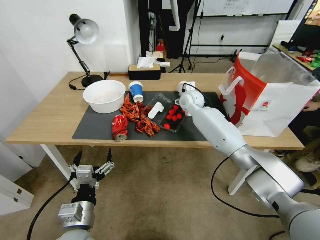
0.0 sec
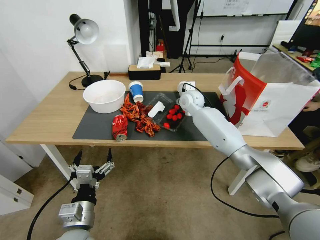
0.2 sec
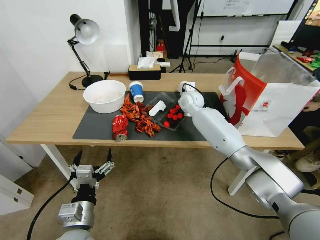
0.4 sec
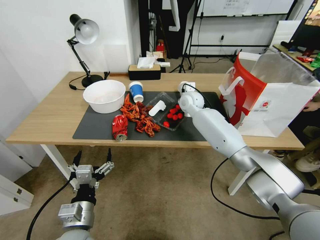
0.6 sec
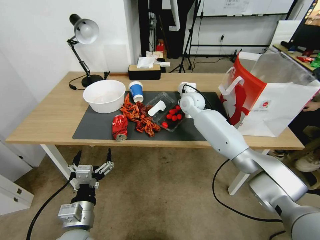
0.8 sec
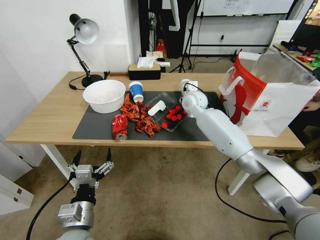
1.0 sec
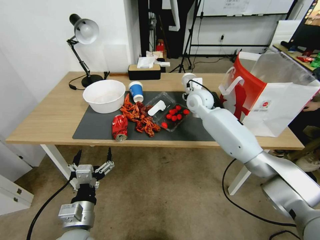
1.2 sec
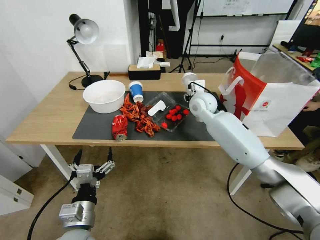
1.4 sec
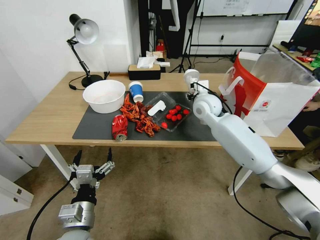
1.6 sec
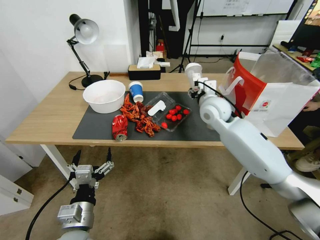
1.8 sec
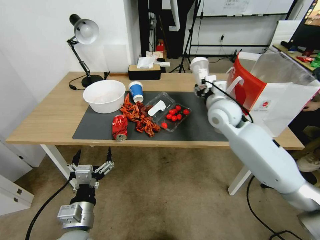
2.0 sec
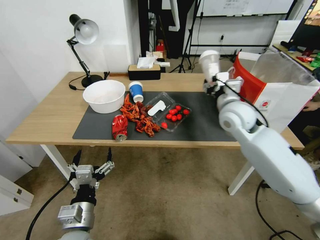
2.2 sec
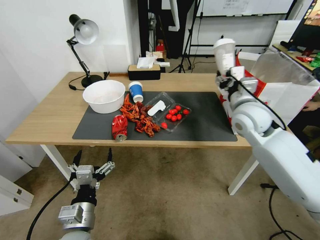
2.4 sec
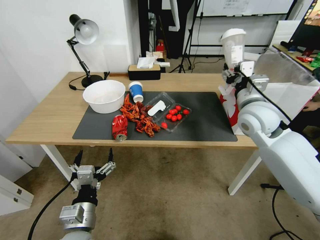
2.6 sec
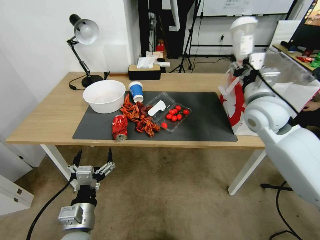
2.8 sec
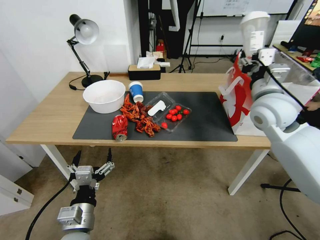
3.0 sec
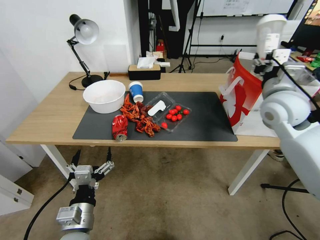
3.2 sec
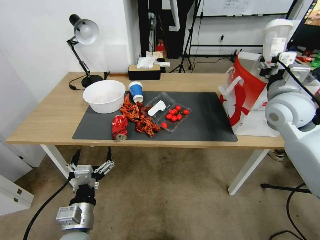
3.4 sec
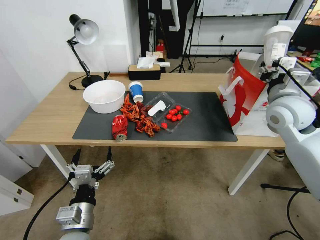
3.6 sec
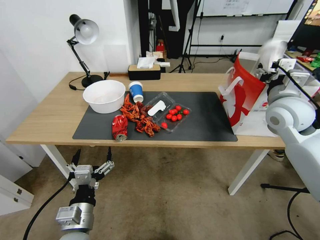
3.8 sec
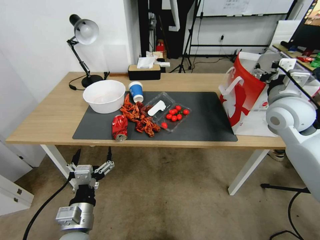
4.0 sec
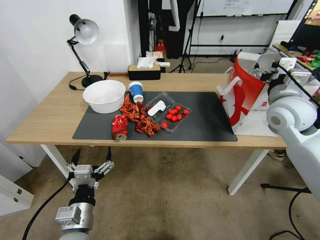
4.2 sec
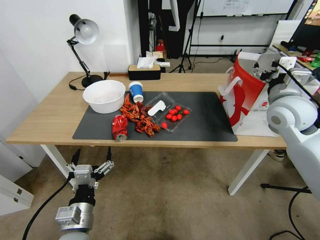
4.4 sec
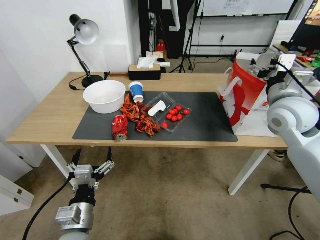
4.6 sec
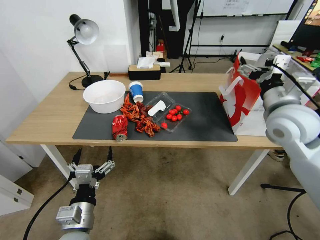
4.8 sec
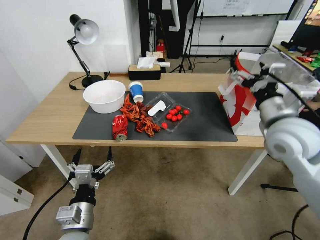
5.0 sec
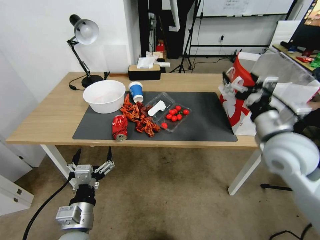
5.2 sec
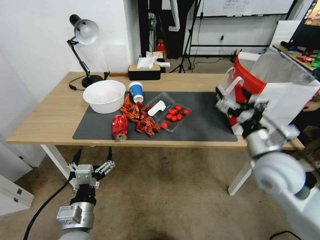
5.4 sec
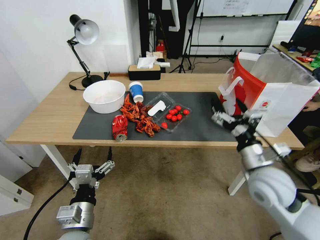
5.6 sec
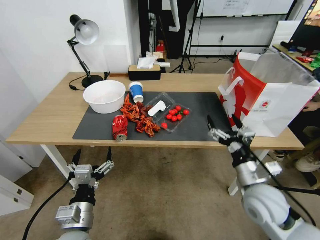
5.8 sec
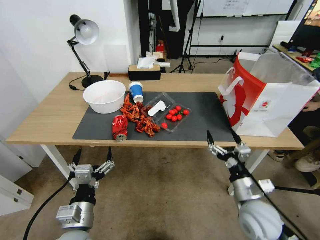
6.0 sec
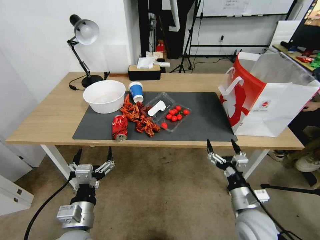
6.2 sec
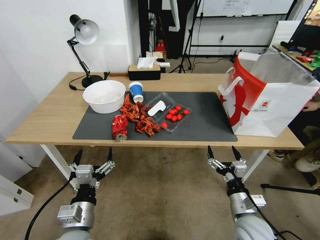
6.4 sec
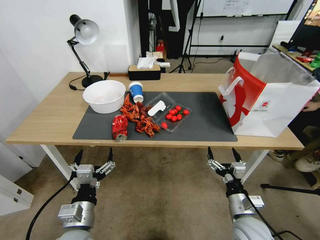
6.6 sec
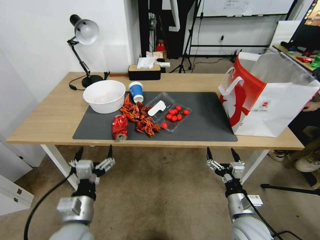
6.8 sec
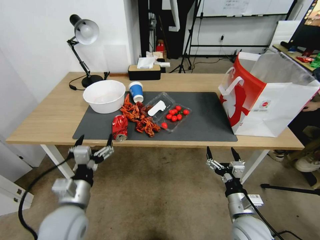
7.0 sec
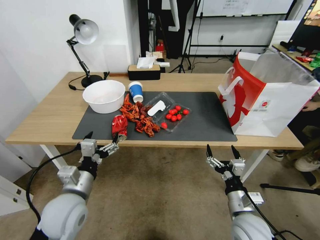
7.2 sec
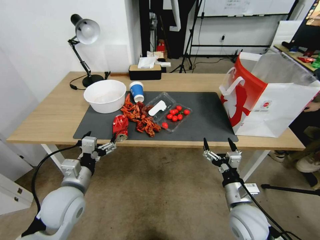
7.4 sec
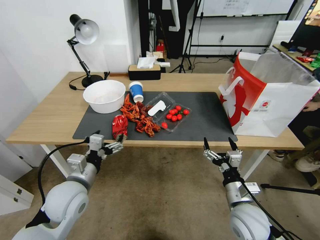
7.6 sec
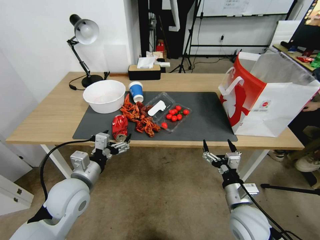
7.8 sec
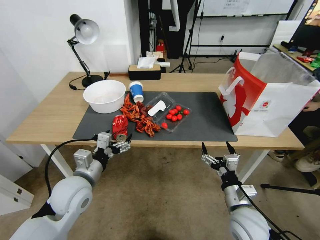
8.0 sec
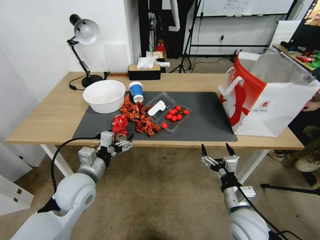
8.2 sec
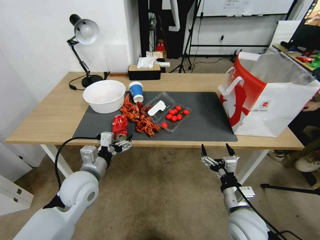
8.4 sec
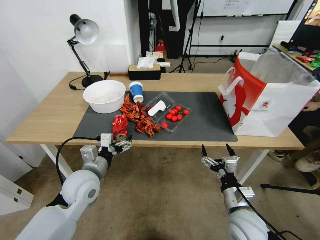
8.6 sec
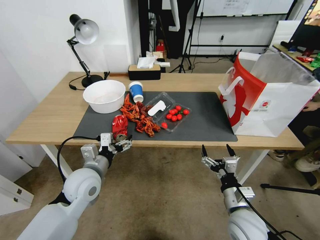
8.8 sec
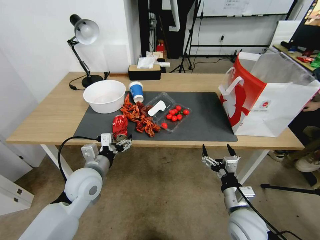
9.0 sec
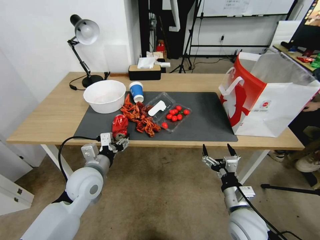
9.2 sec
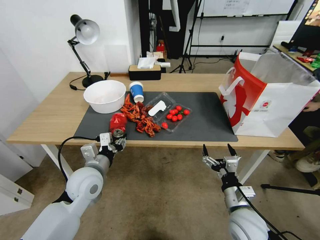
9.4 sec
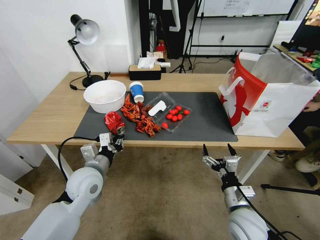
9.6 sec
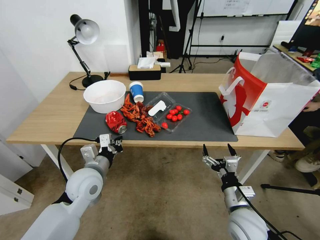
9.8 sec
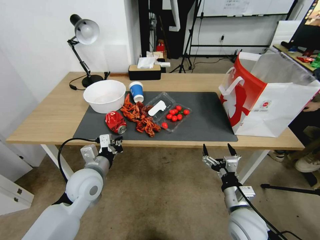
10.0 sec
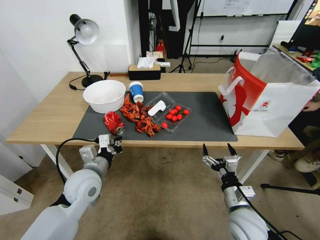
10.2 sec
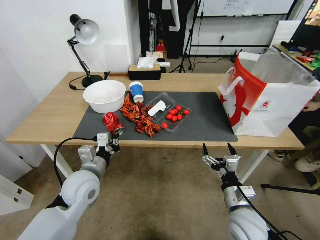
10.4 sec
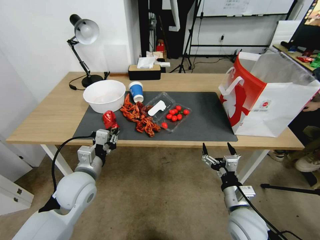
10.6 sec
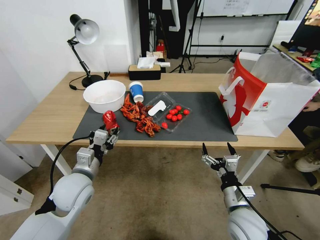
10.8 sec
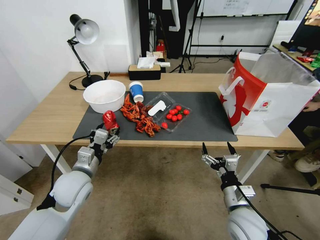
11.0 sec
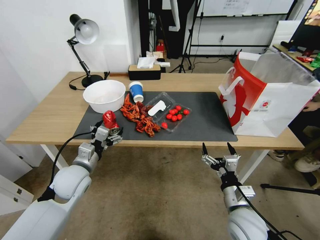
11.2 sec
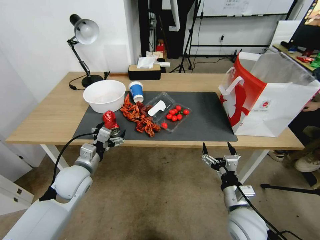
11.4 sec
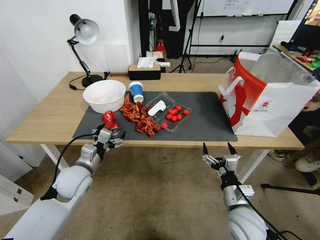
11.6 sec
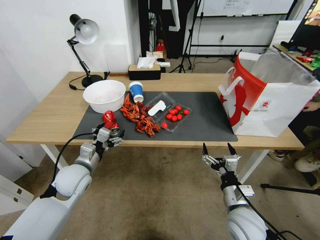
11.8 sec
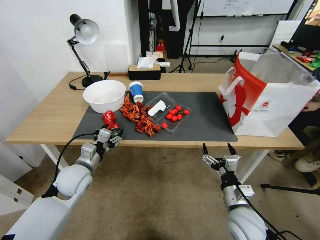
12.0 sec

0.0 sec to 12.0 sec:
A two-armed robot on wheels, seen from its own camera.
0.0 sec to 1.6 sec: The right gripper moves backward, roughly 10 cm, and closes its fingers.
1.6 sec to 3.0 sec: The right gripper moves to the right, backward and upward, approximately 20 cm.
3.0 sec to 4.4 sec: The right gripper opens its fingers.
4.4 sec to 6.0 sec: The right gripper shifts some 30 cm downward and backward.
6.0 sec to 7.6 sec: The left gripper shifts approximately 10 cm forward.
7.6 sec to 9.0 sec: The left gripper shifts by approximately 5 cm.
9.0 sec to 10.4 sec: The left gripper closes its fingers.
10.4 sec to 12.0 sec: The left gripper moves some 5 cm, and opens.

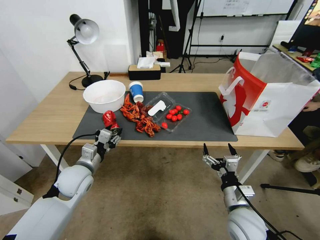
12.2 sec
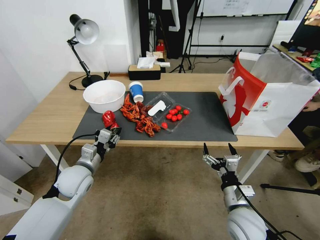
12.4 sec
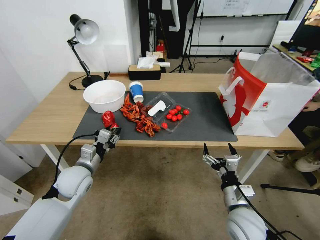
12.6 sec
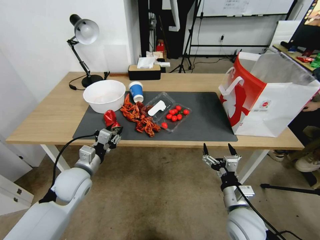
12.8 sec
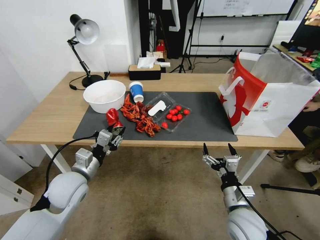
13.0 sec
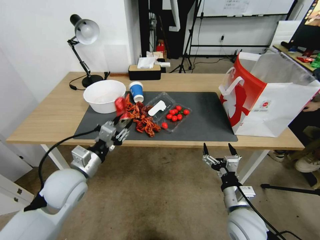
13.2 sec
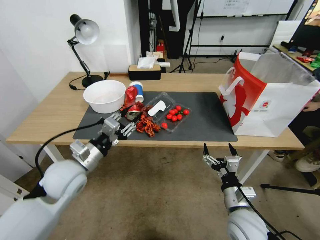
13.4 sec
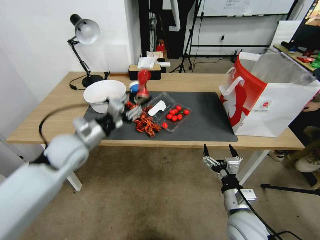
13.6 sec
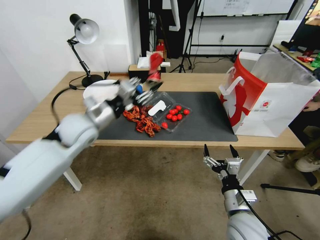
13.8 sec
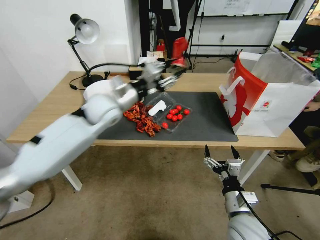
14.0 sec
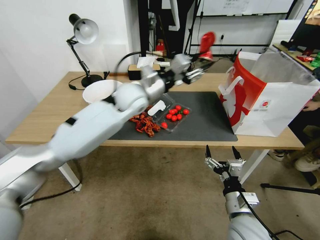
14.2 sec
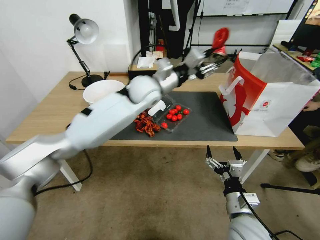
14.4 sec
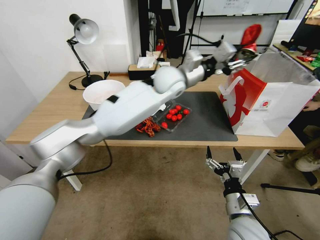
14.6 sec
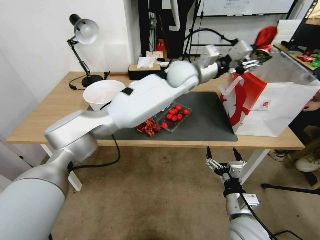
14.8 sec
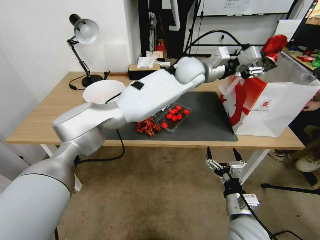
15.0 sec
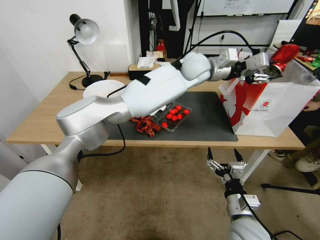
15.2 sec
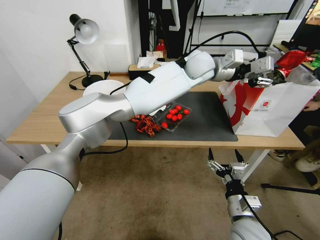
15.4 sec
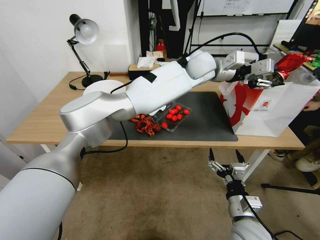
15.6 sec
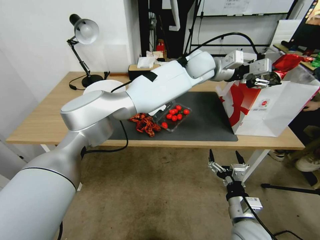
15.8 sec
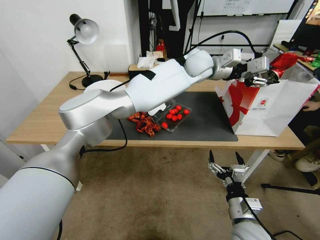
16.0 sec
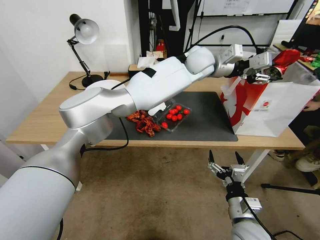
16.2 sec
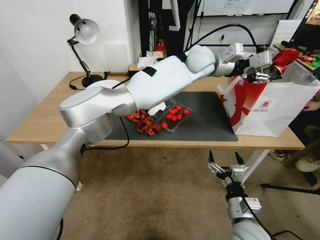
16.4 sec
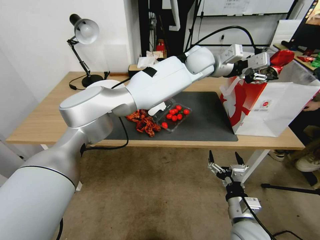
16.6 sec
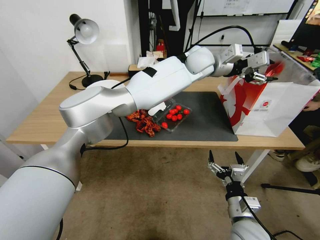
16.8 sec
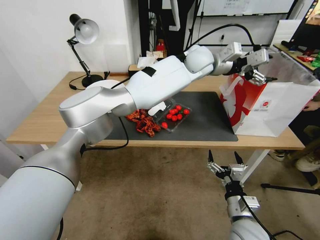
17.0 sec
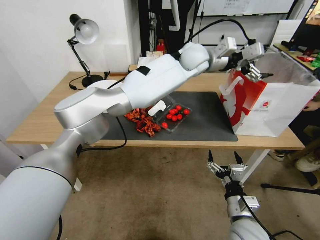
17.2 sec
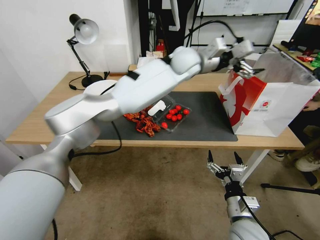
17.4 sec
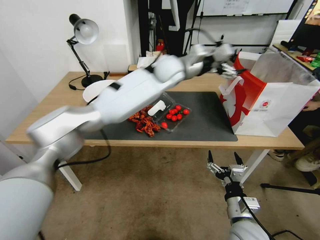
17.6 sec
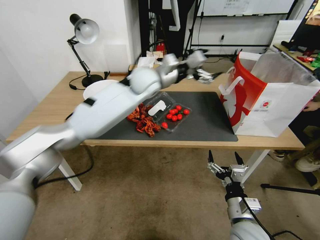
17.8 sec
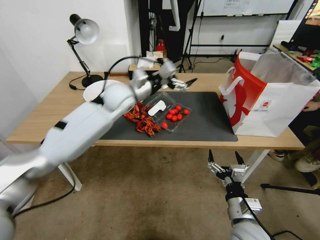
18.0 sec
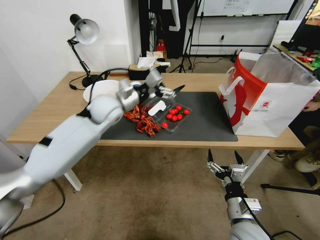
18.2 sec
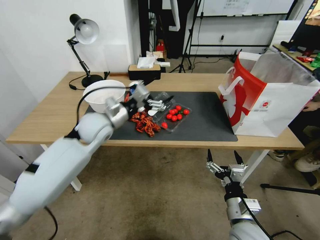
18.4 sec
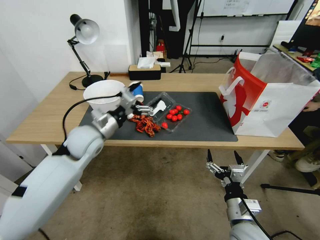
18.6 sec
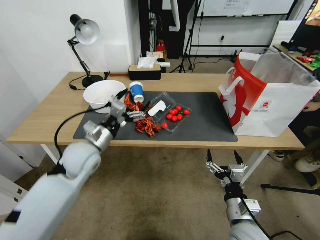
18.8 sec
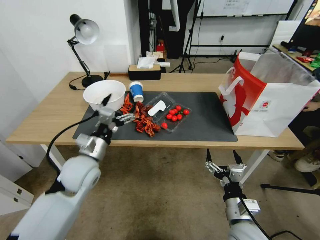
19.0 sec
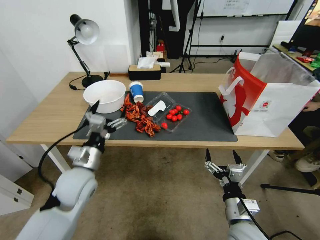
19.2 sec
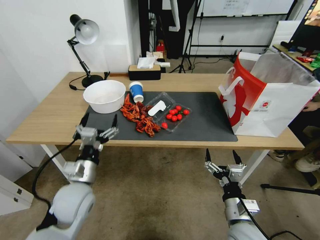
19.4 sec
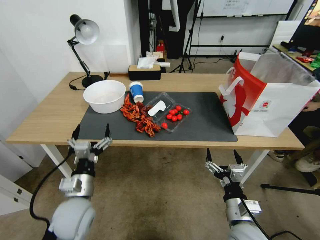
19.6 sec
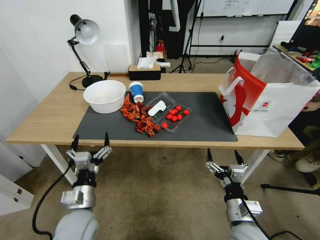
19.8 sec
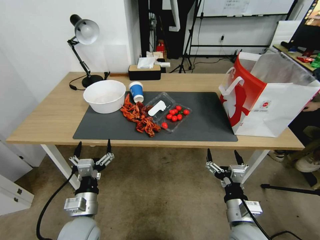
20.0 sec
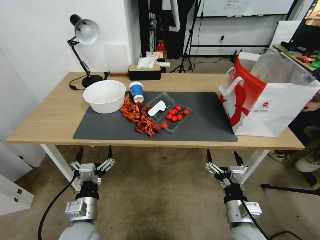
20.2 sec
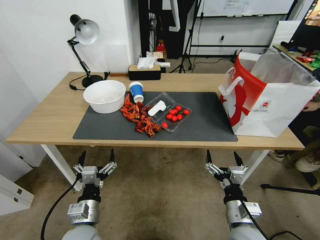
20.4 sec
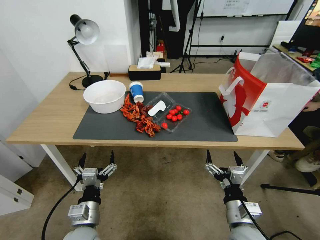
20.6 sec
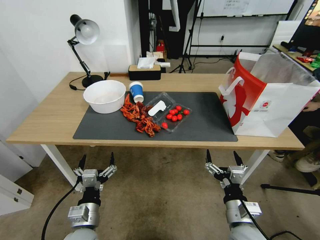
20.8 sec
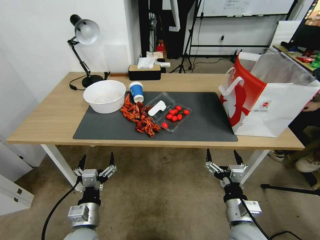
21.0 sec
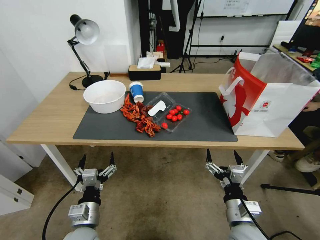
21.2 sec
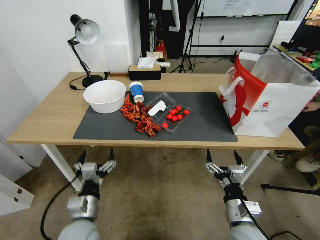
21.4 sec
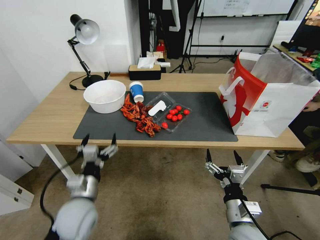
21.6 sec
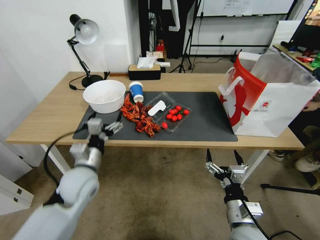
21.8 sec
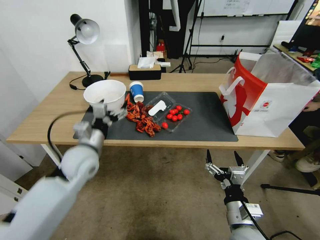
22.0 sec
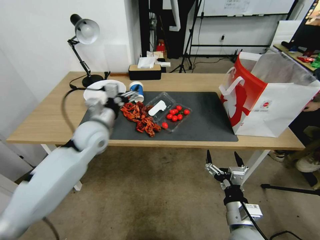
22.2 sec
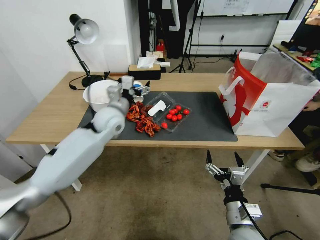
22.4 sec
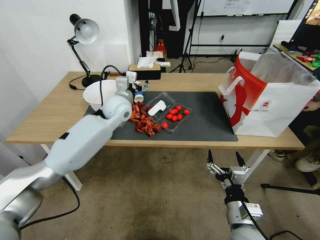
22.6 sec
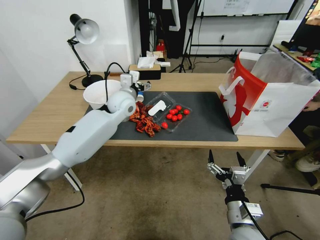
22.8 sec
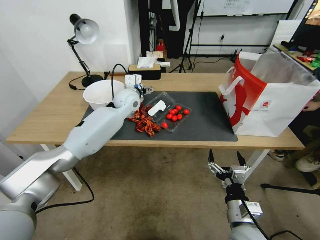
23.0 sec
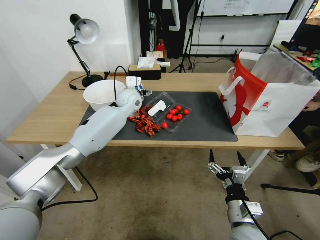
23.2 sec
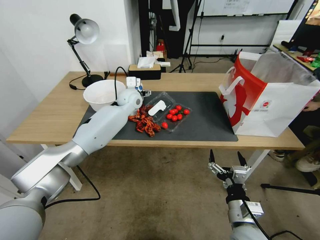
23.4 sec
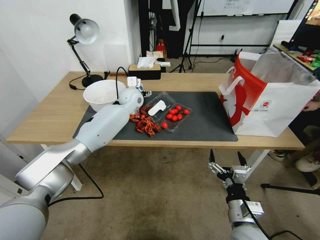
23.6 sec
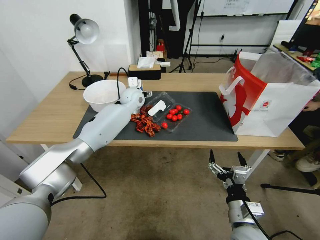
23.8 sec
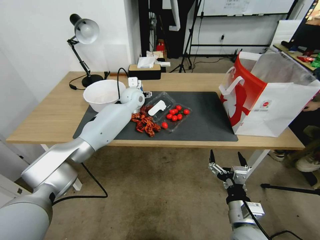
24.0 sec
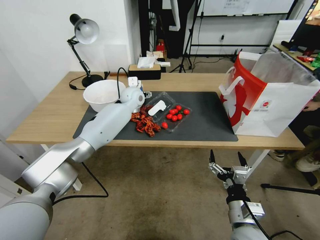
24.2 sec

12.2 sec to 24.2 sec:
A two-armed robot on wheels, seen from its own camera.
12.2 sec to 13.8 sec: The left gripper shifts approximately 15 cm upward and forward.
13.8 sec to 15.2 sec: The left gripper is displaced to the right and forward by roughly 40 cm.
15.2 sec to 16.6 sec: The grippers stay close to where they were, moving slightly.
16.6 sec to 18.2 sec: The left gripper moves to the left, some 30 cm, and opens its fingers.
18.2 sec to 19.8 sec: The left gripper moves backward and downward, some 35 cm.
19.8 sec to 21.2 sec: The left gripper moves about 5 cm.
21.2 sec to 22.6 sec: The left gripper heads forward and upward, covering approximately 40 cm.
22.6 sec to 24.2 sec: The left gripper heads forward, covering about 10 cm.
